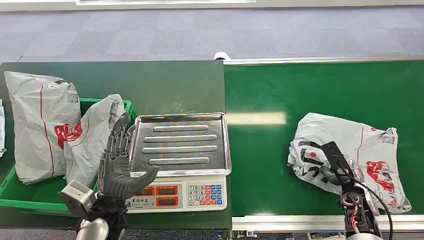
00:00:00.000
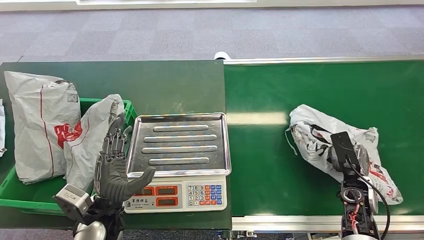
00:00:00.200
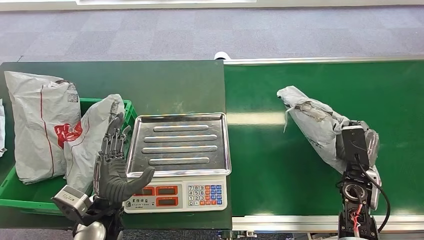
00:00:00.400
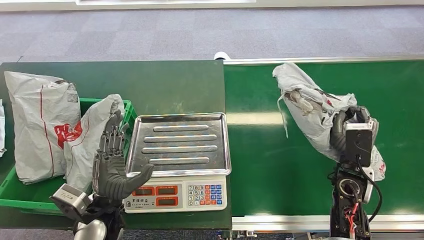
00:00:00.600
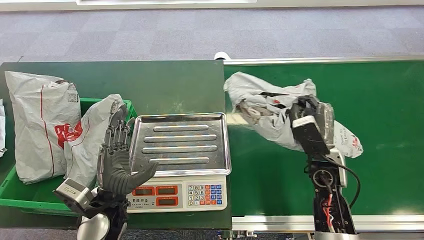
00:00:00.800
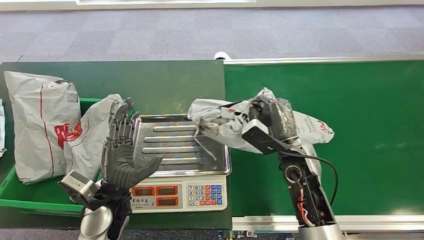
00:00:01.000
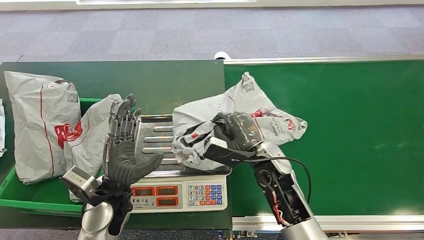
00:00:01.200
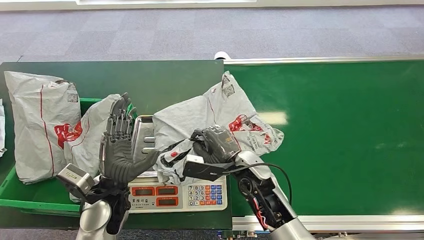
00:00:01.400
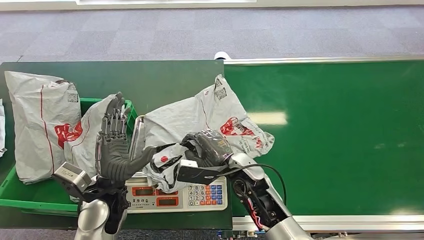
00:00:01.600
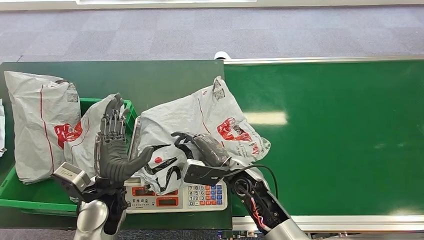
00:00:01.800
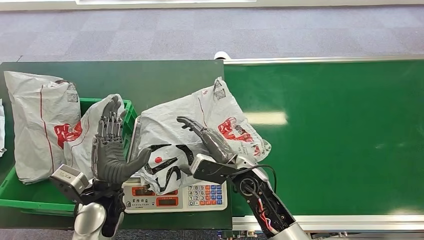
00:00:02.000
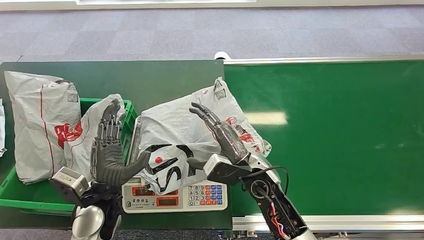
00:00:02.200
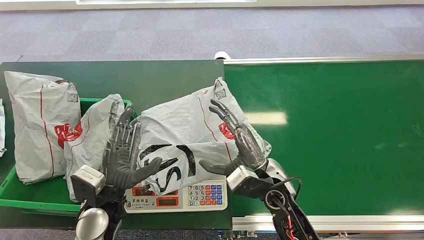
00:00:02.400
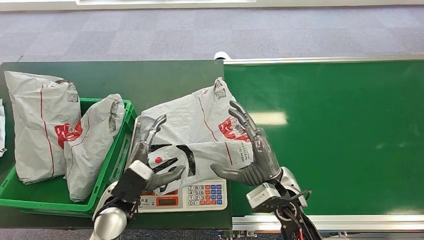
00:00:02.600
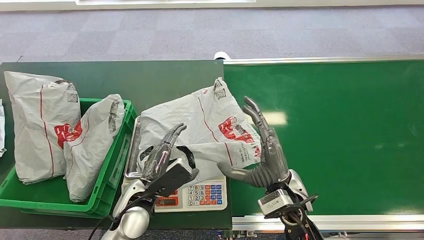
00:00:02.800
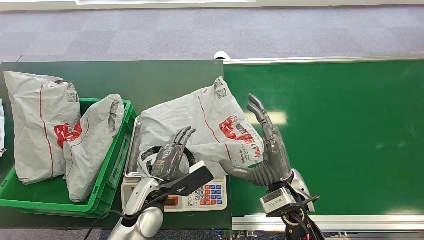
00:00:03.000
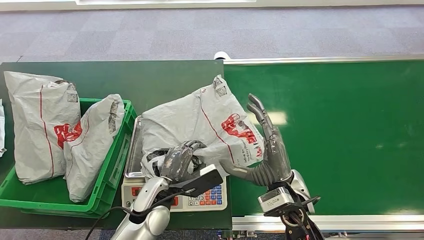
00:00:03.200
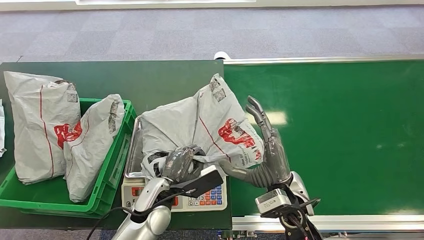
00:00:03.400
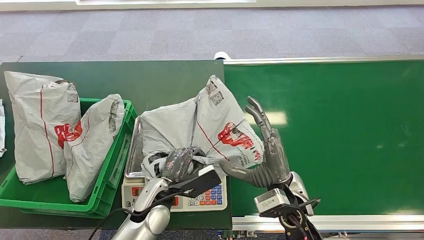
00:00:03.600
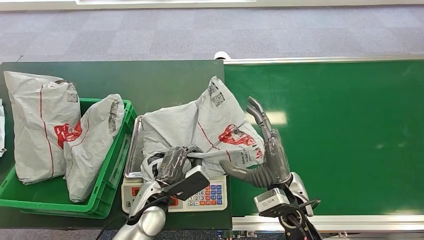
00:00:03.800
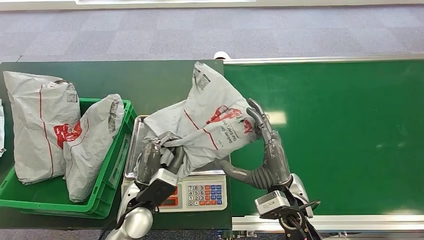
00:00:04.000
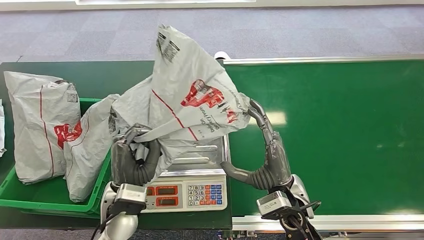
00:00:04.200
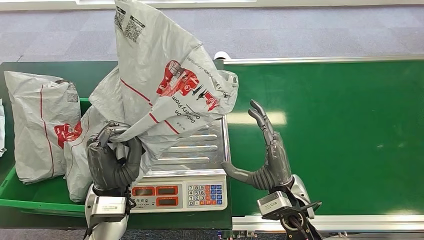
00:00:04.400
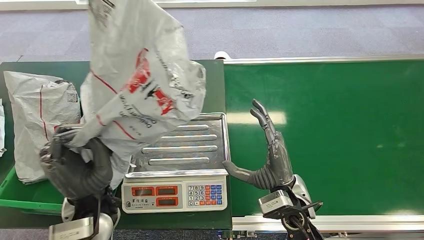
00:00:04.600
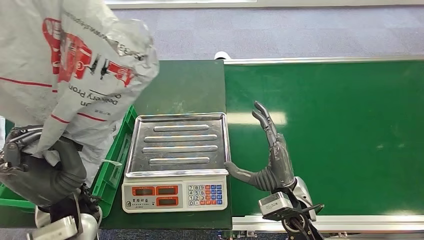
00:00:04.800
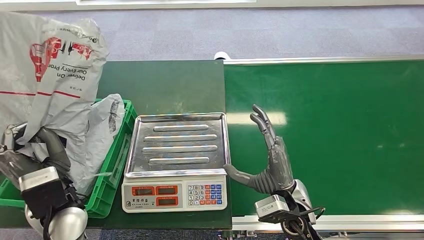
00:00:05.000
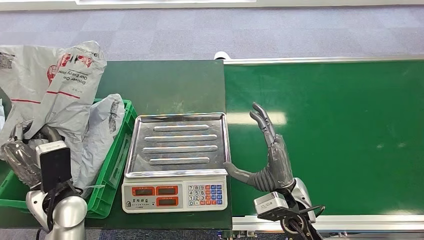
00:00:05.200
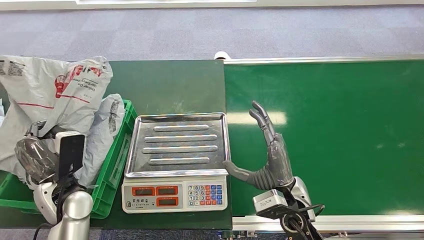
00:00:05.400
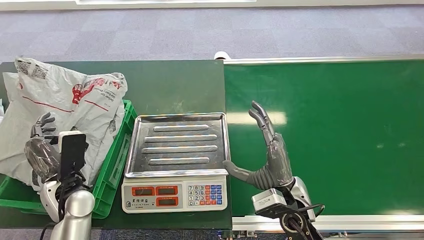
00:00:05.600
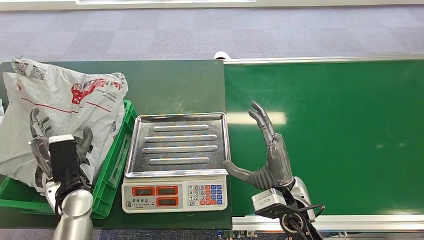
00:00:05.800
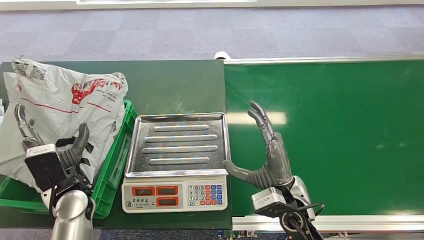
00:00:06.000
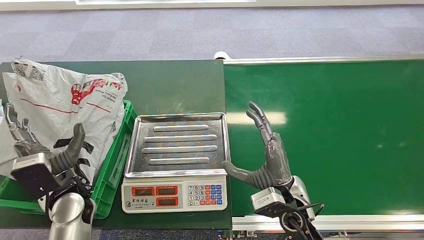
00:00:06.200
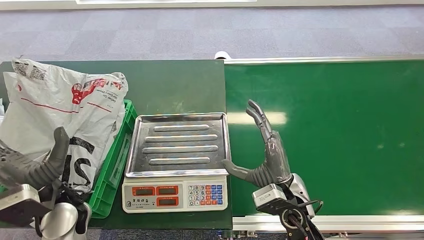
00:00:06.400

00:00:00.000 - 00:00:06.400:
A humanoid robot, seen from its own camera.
Step, 00:00:00.000 - 00:00:00.600: Pick up the package from the conveyor belt.
Step, 00:00:01.000 - 00:00:02.000: Place the package onto the inbound machine.
Step, 00:00:03.400 - 00:00:04.200: Pick up the package from the inbound machine.
Step, 00:00:04.800 - 00:00:06.400: Place the package into the parcel locker.
00:00:01.600 - 00:00:03.200: The left hand is displaced to the right by roughly 10 cm; the right hand is displaced to the right, backward and upward by roughly 10 cm.

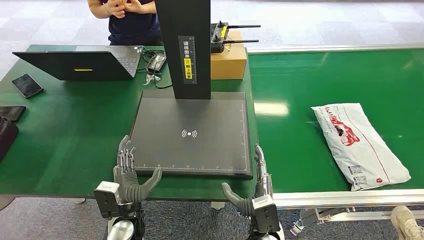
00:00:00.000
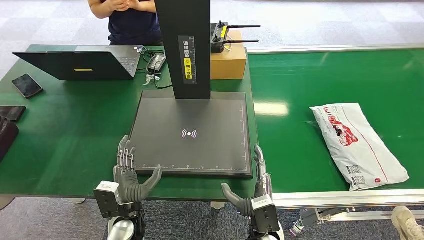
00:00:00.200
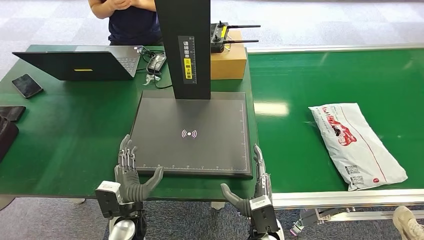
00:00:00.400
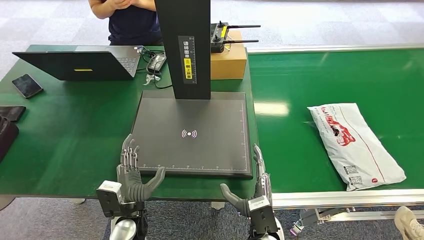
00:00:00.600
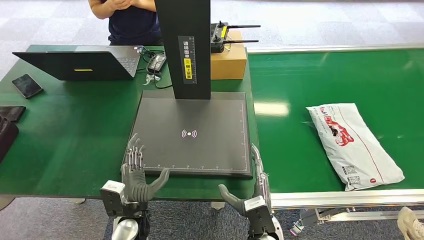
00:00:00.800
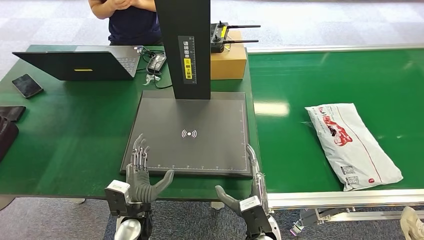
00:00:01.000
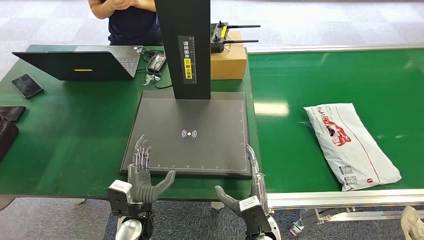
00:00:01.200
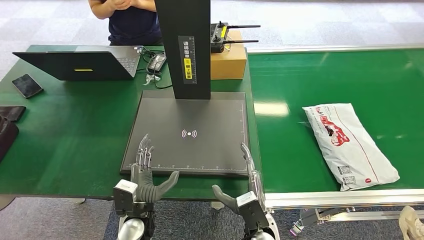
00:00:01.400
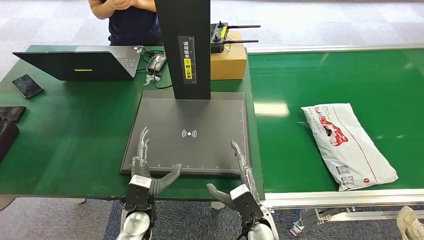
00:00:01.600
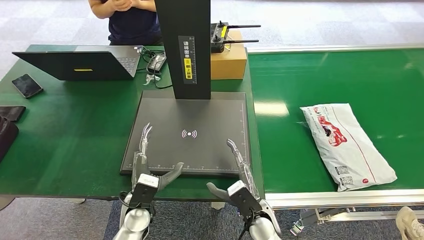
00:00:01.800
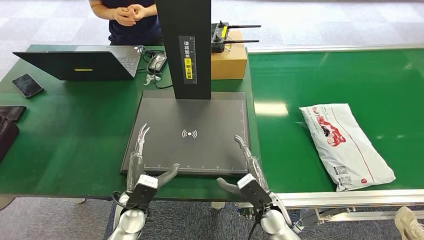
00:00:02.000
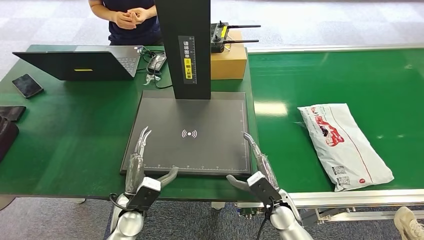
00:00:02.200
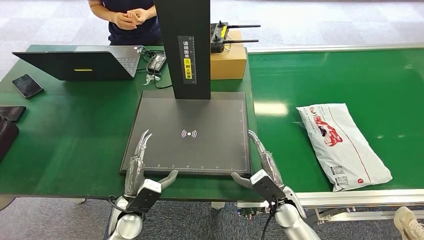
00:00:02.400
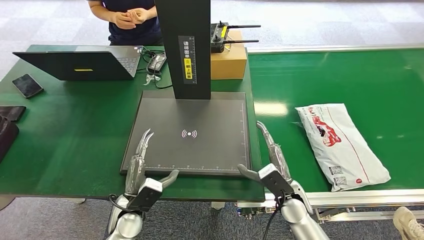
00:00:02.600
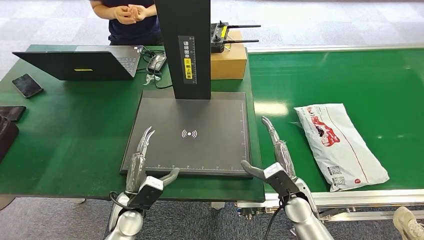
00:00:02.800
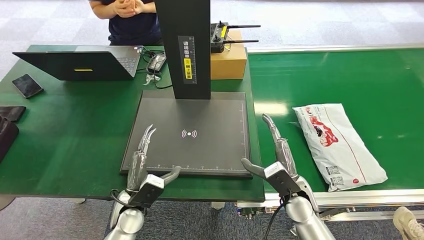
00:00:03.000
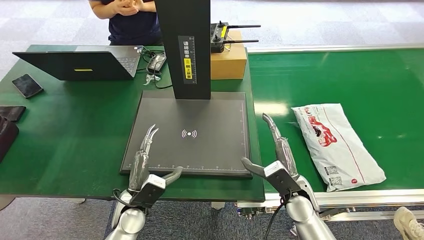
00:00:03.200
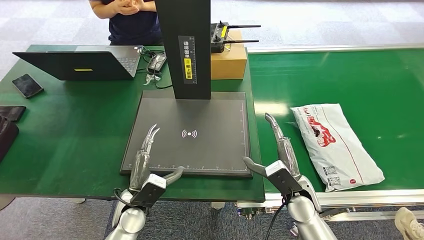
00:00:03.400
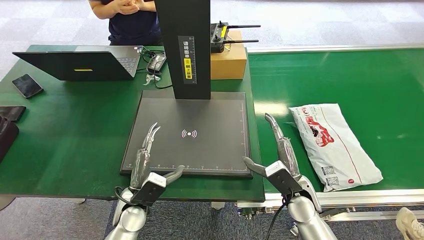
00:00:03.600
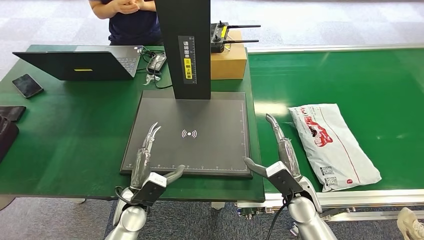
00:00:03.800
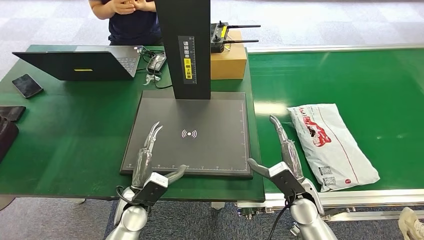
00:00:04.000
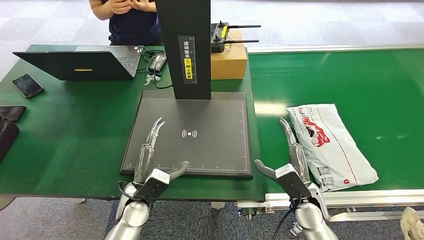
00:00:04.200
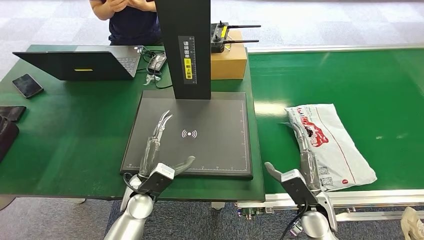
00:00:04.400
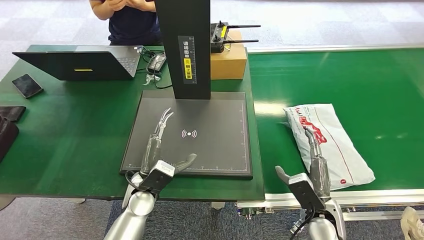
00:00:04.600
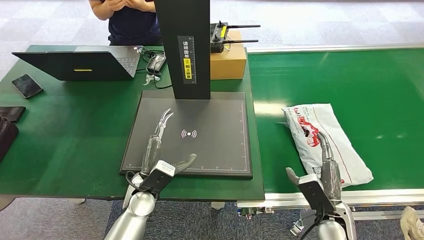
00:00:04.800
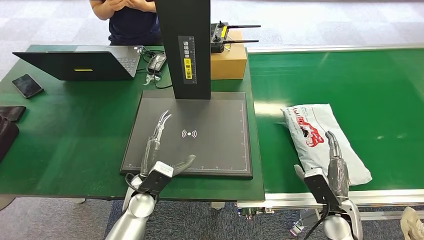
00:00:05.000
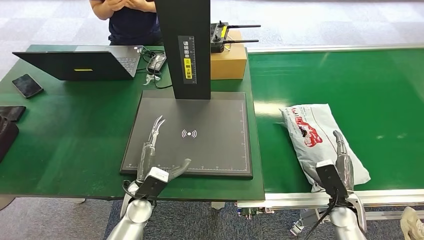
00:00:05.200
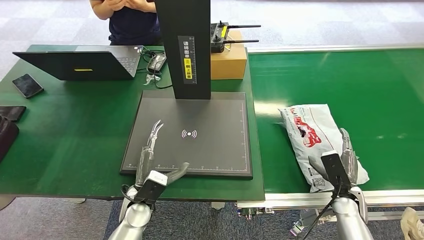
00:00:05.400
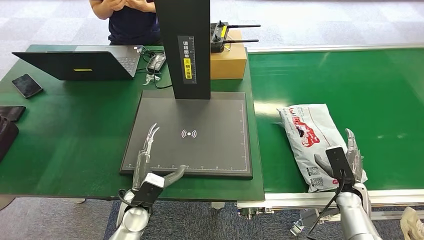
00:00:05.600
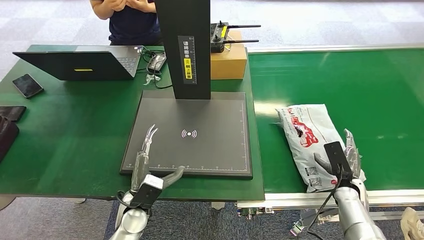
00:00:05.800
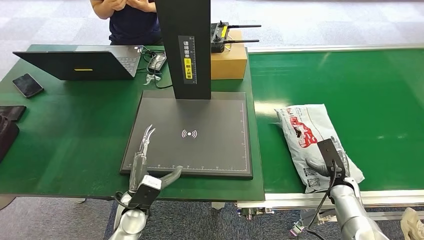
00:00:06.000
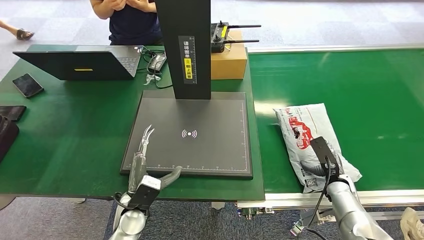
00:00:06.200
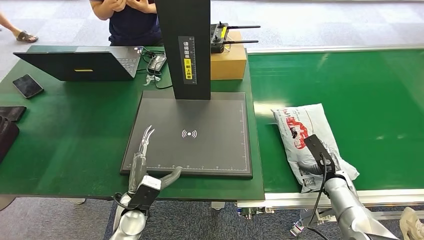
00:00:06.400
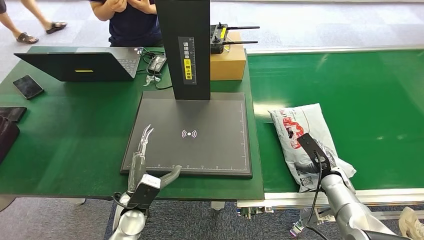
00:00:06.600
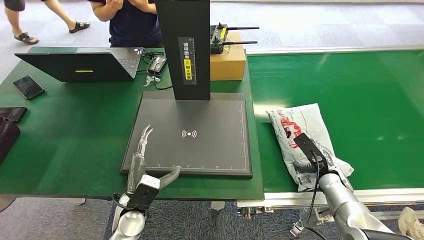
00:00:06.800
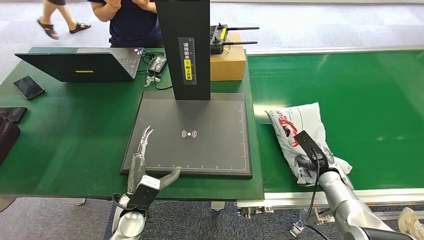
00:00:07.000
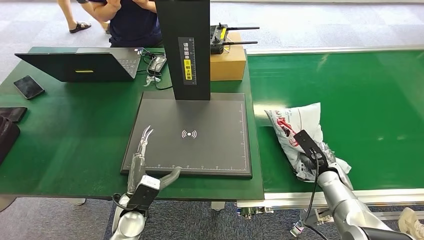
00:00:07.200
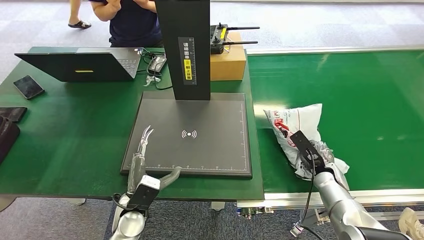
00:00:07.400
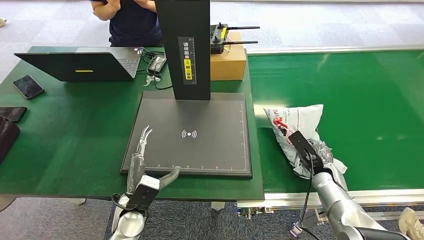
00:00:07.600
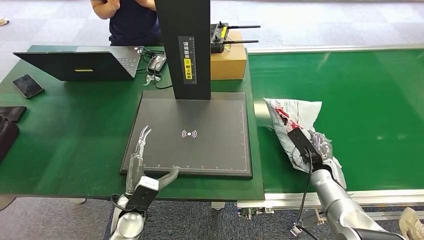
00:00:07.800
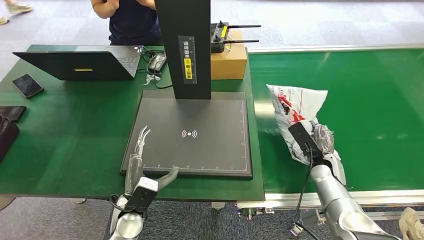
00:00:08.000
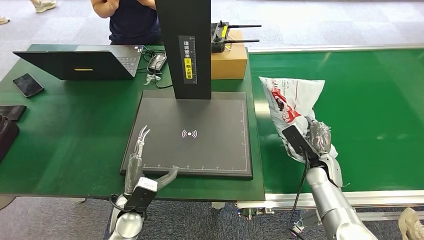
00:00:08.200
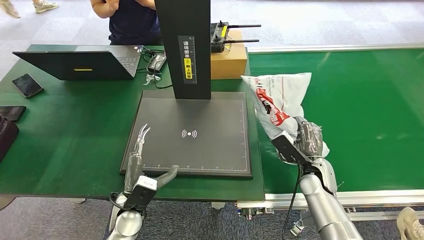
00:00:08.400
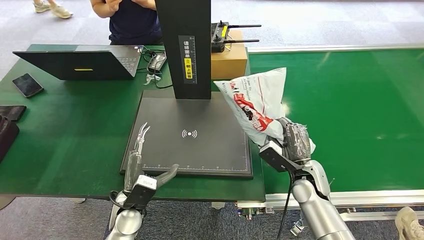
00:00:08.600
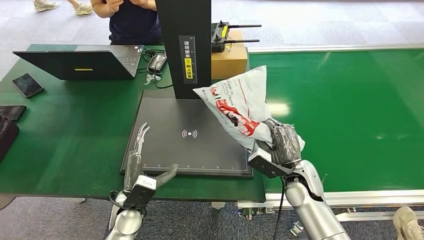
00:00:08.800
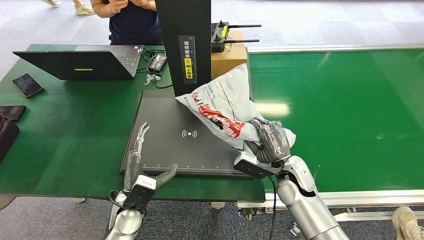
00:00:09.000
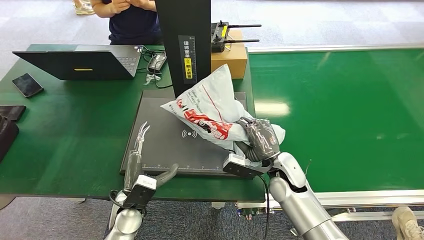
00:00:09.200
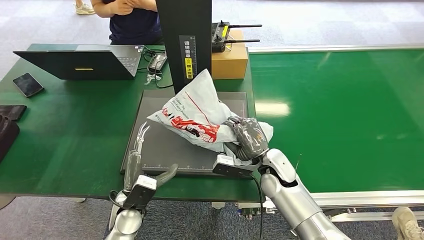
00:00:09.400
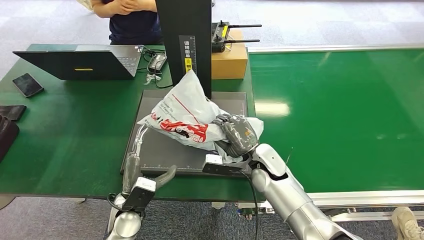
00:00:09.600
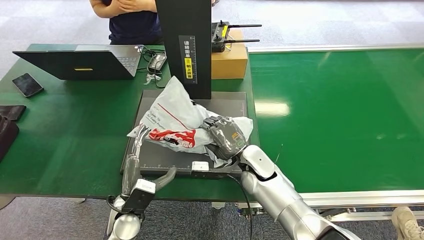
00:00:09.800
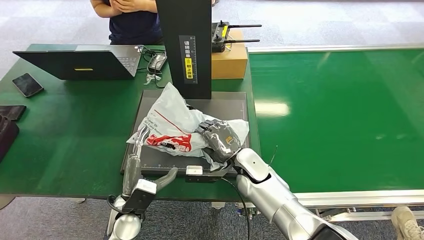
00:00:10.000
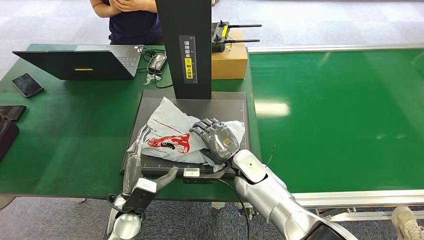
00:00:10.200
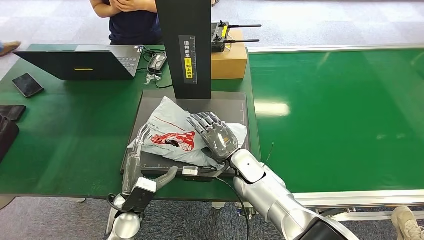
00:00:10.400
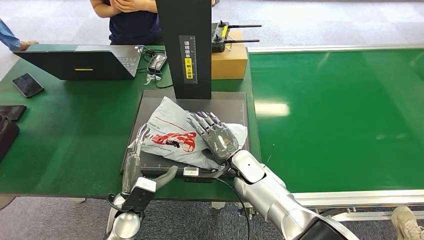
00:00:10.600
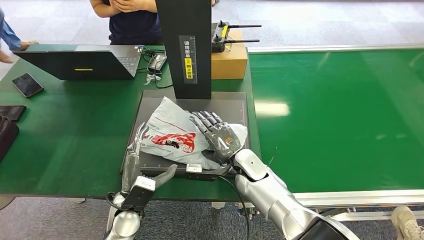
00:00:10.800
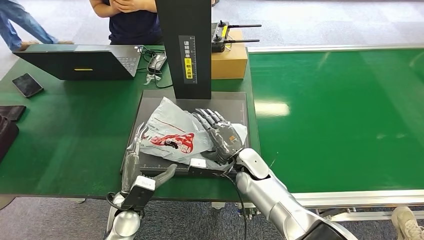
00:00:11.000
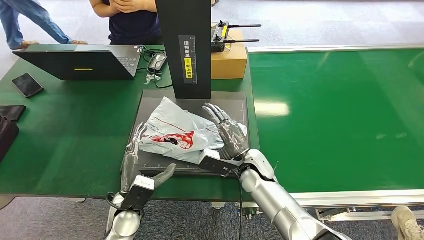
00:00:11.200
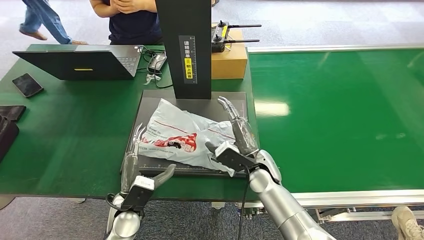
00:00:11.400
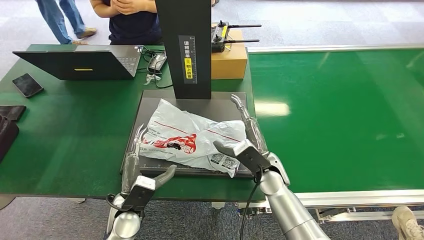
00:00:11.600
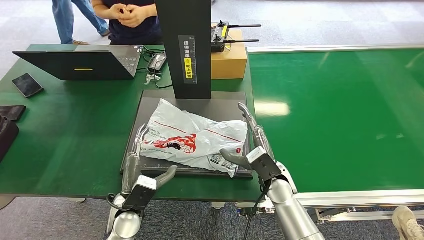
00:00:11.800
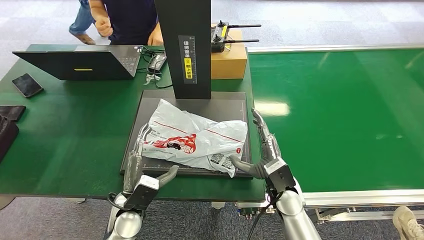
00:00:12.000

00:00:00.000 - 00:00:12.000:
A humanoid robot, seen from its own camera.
Step, 00:00:00.000 - 00:00:08.400: Pick up the package from the conveyor belt.
Step, 00:00:08.600 - 00:00:11.800: Place the package onto the inbound machine.
00:00:01.600 - 00:00:03.000: The right hand heads to the right and forward, covering about 10 cm.
00:00:03.000 - 00:00:04.400: The left hand shifts by roughly 5 cm. The right hand shifts by approximately 5 cm.
00:00:04.400 - 00:00:06.000: The right hand moves to the right, forward and downward, approximately 15 cm.
00:00:06.000 - 00:00:07.600: The right hand ends up approximately 5 cm from where it was.
00:00:09.000 - 00:00:10.400: The right hand moves to the left, some 10 cm.
00:00:10.400 - 00:00:12.000: The right hand moves to the right and backward, roughly 10 cm.
